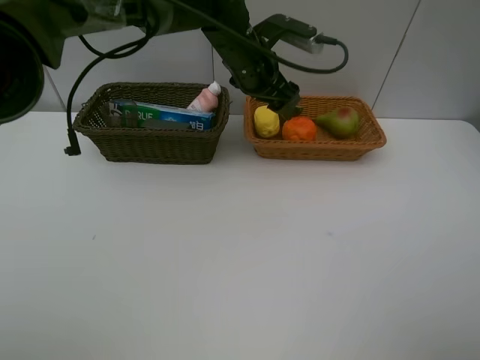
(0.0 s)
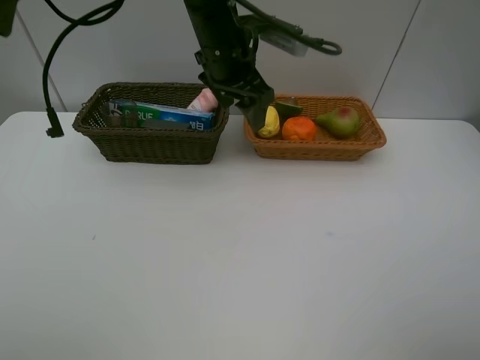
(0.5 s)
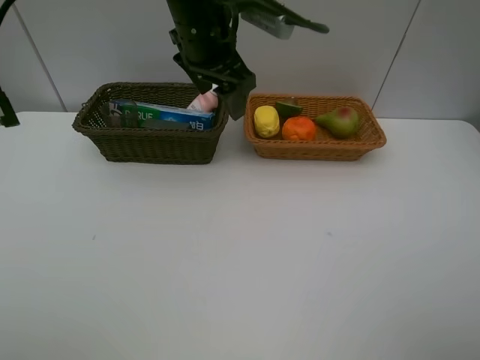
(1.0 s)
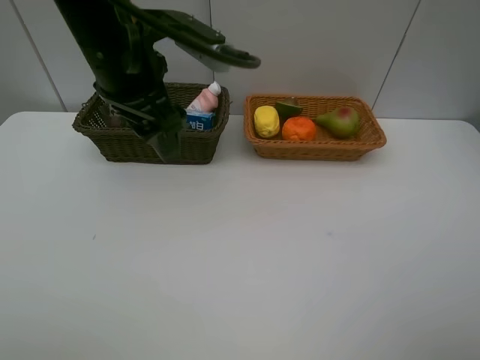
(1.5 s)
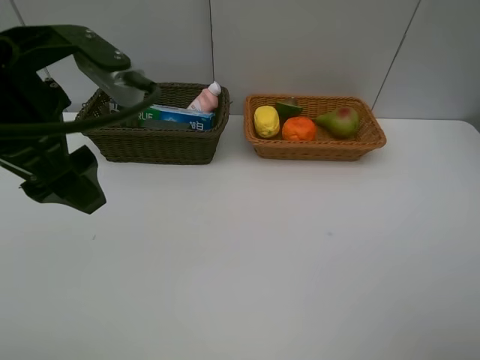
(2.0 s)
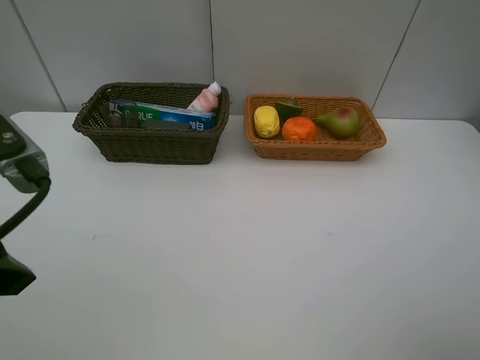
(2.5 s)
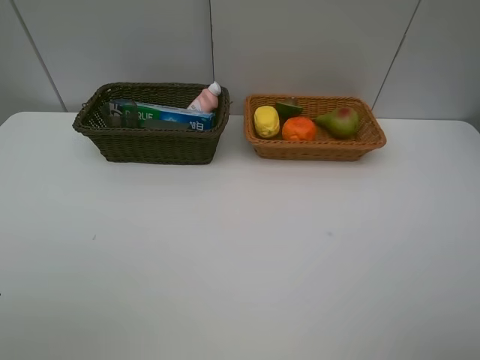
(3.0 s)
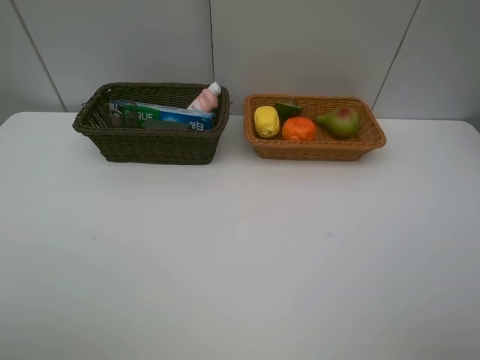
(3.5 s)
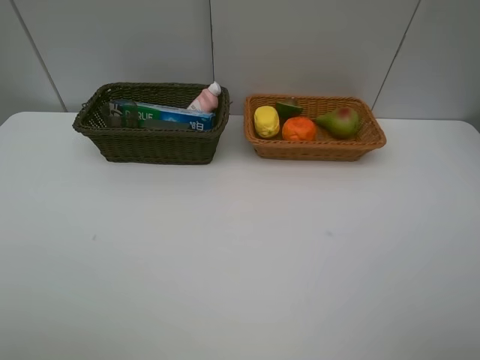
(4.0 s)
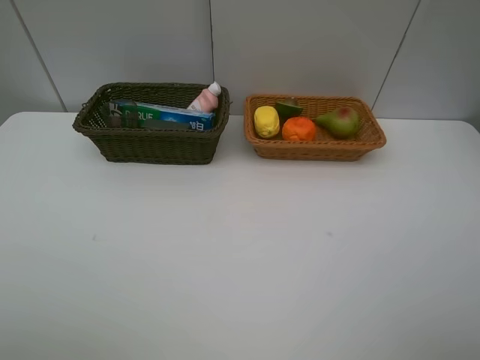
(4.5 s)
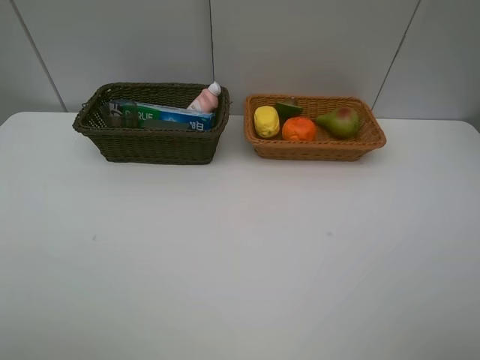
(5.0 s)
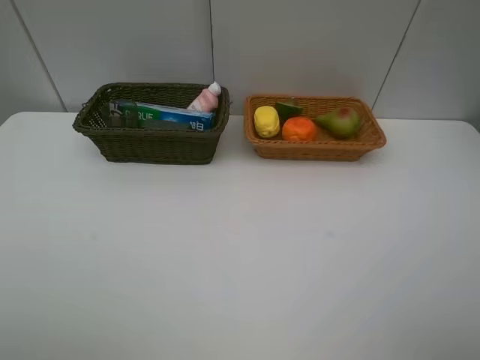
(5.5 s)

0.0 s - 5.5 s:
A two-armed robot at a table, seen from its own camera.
Task of the whole recording: Place multiple objects separately in different baskets.
0.0 s - 2.0 s: The left gripper is displaced backward and to the left by some 30 cm.
2.0 s - 3.5 s: The left gripper travels backward and to the left by some 20 cm.
